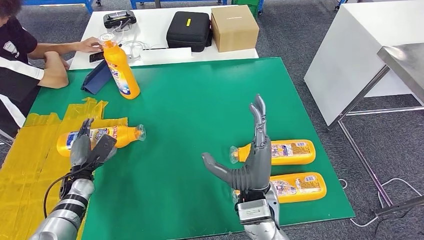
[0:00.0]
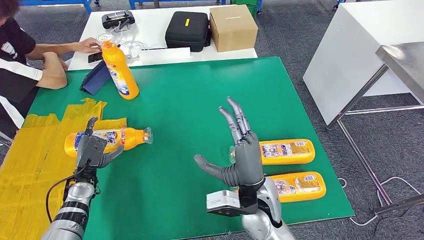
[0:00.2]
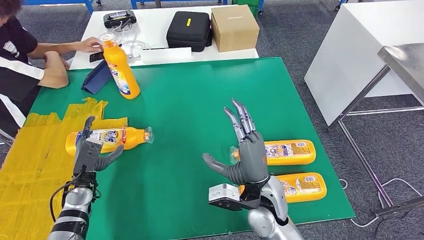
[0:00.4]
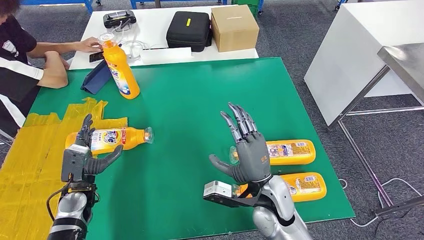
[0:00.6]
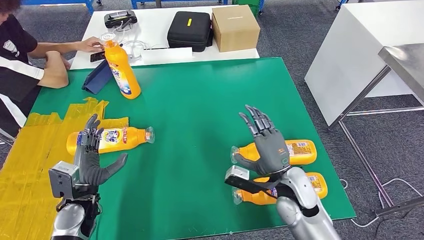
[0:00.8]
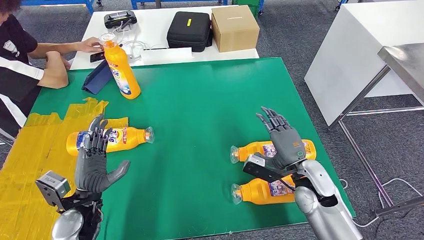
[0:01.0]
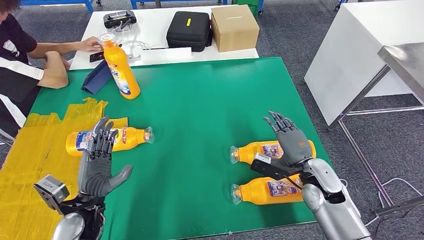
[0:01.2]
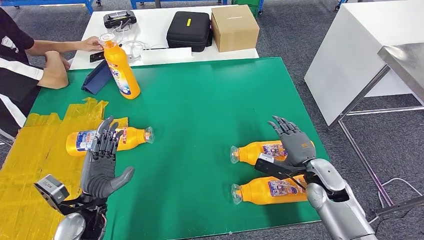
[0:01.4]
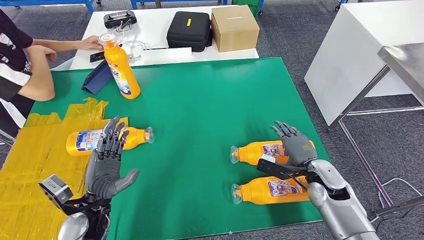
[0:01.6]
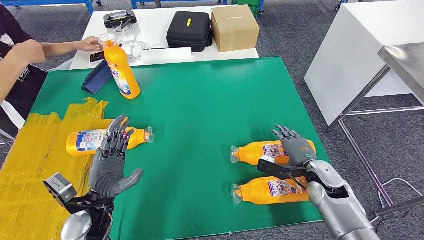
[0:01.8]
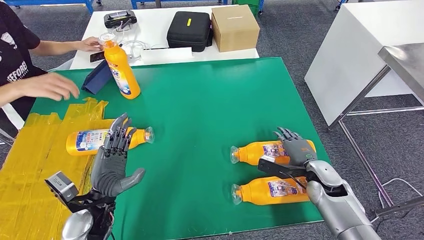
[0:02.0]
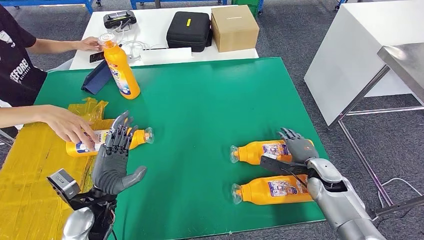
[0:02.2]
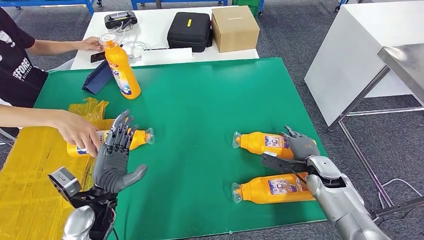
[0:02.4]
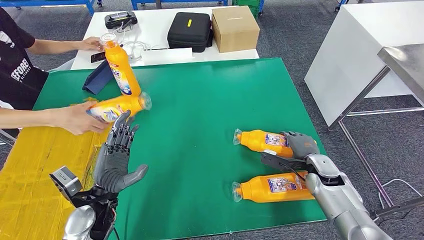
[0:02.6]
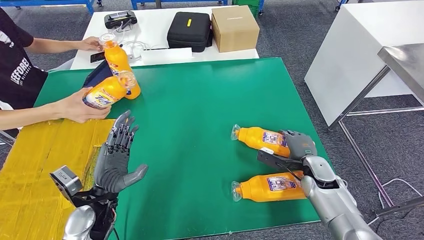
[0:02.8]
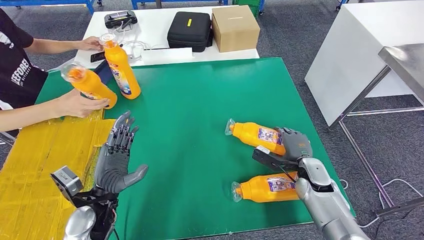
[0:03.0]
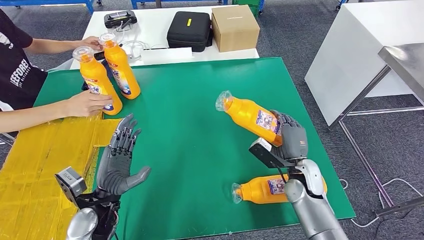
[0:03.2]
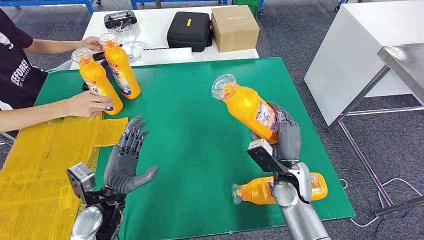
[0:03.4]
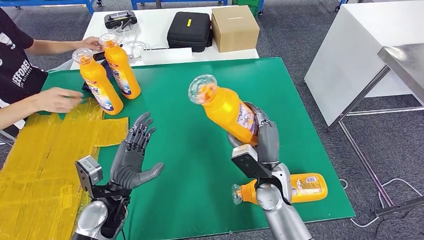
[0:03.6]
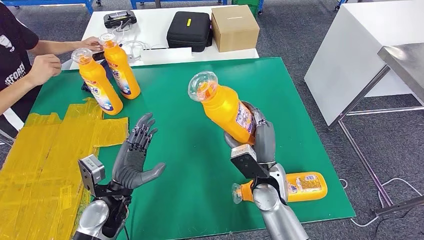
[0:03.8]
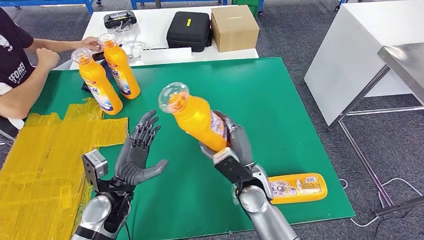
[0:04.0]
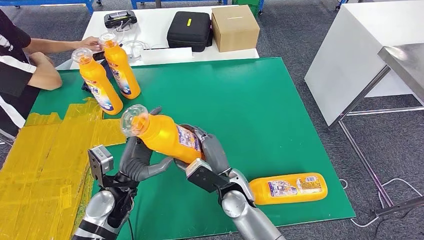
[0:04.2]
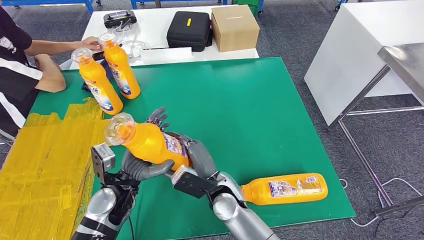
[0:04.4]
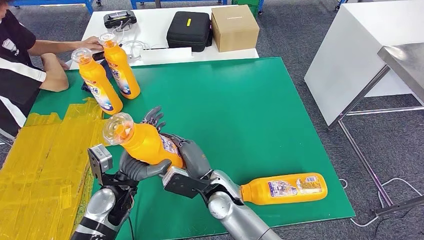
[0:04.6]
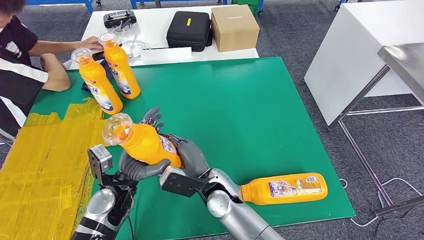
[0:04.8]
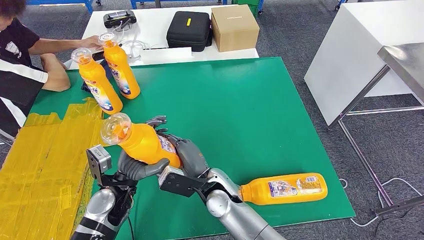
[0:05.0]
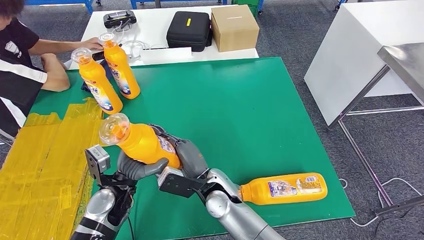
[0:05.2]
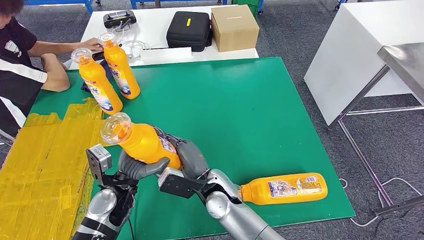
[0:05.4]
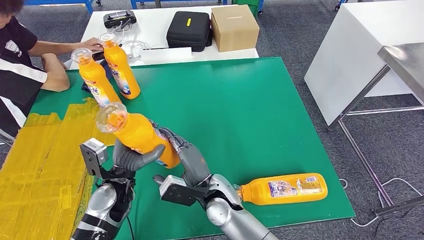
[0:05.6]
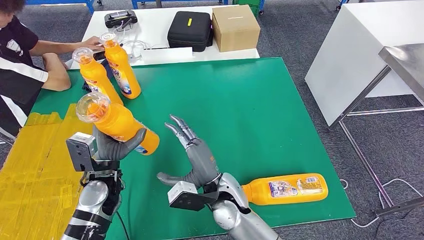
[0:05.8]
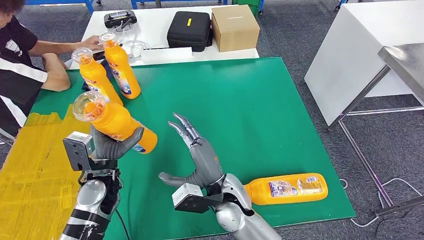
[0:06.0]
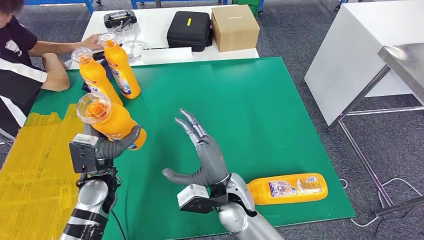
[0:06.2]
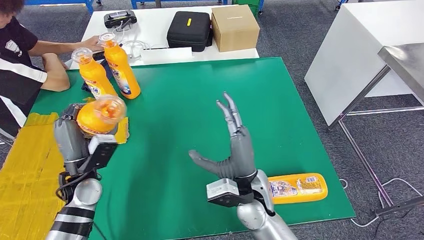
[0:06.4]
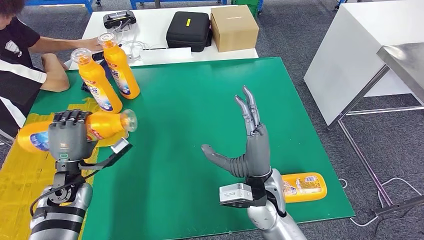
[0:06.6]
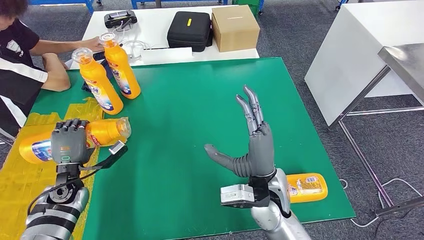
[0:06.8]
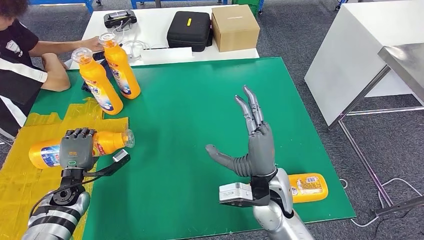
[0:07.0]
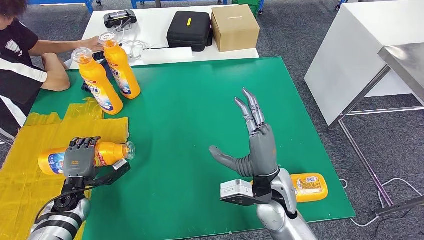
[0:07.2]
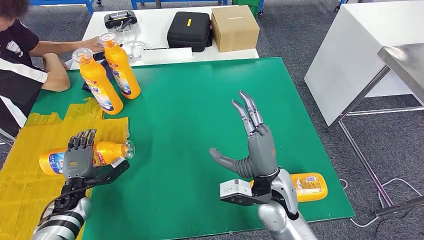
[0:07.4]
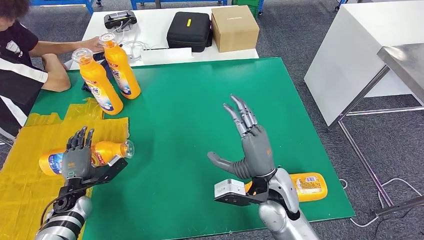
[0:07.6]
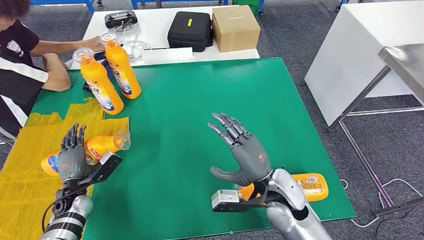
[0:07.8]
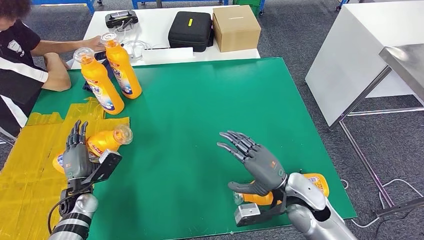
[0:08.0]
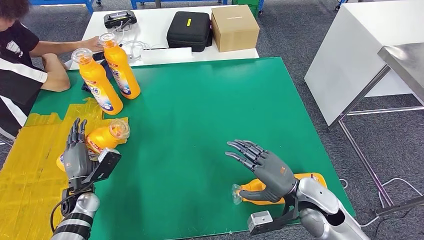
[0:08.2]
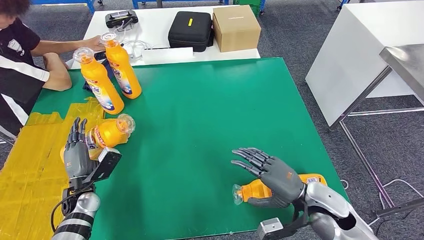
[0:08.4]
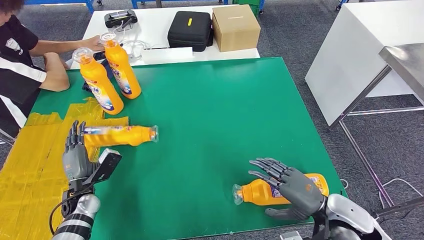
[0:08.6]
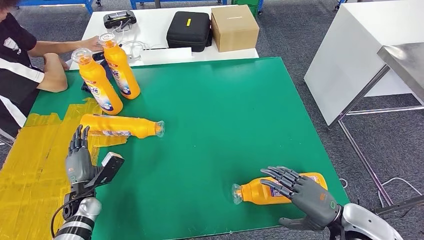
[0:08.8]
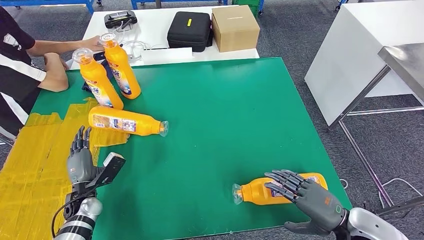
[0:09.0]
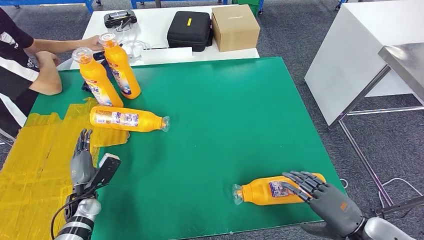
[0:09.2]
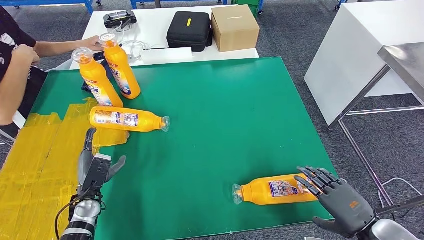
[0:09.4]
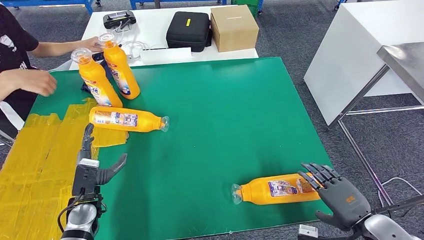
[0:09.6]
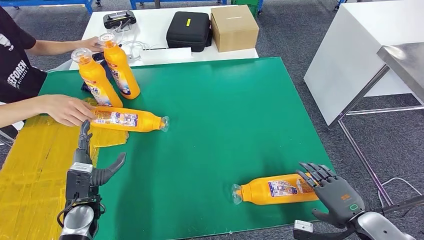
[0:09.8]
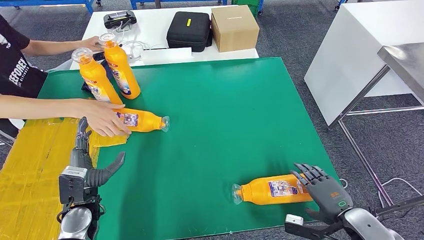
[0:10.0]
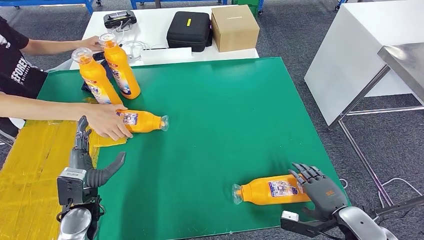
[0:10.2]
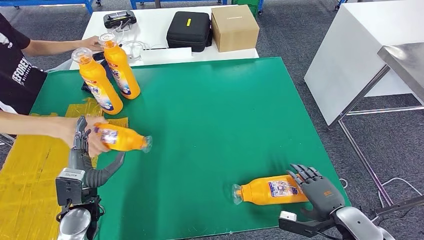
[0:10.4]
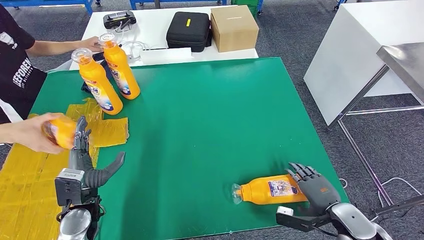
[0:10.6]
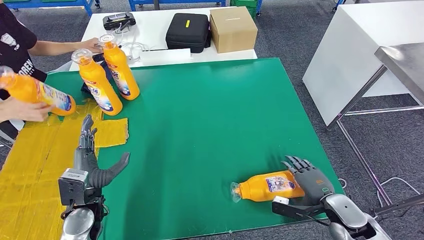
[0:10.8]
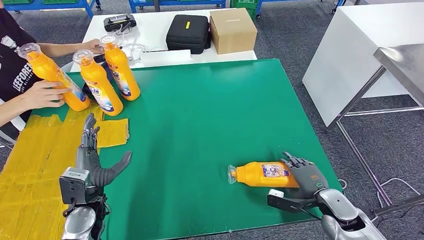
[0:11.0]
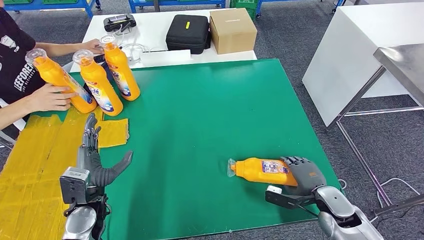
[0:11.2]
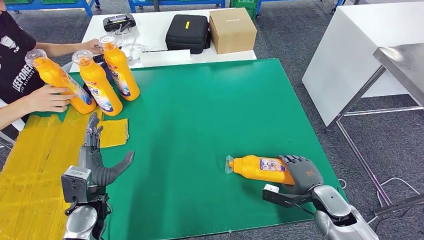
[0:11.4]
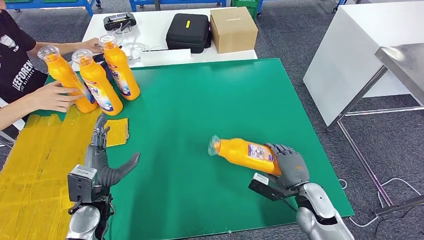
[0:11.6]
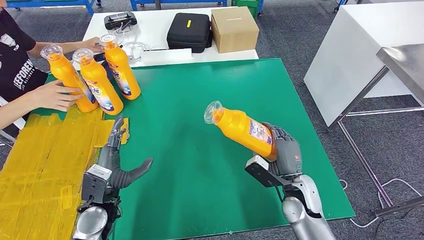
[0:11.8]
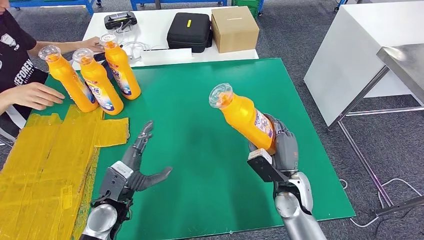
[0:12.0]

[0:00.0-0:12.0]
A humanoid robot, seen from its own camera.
Step, 0:01.2 to 0:04.6: Pick up the fast-moving consumer goods bottle from the table.
Step, 0:04.8 to 0:09.6: Flip the fast-moving consumer goods bottle to the front side.
0:06.0 to 0:07.6: The left hand goes some 20 cm to the left and downward. Meanwhile the right hand moves to the right, some 10 cm.
0:07.6 to 0:09.0: The right hand shifts roughly 20 cm to the right and backward.
0:09.0 to 0:10.4: The left hand goes about 10 cm upward and to the right, while the right hand goes some 5 cm downward.

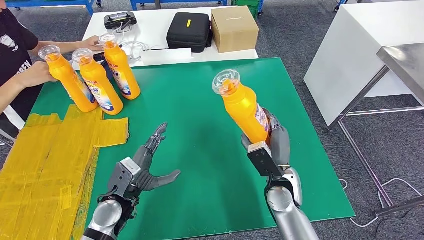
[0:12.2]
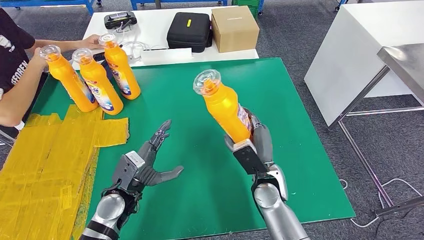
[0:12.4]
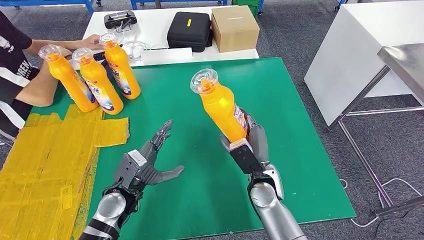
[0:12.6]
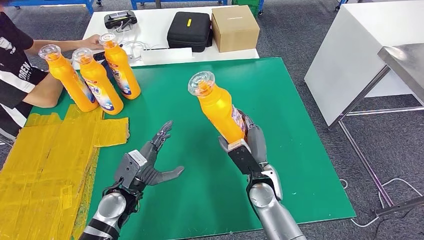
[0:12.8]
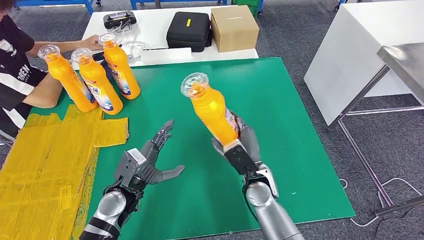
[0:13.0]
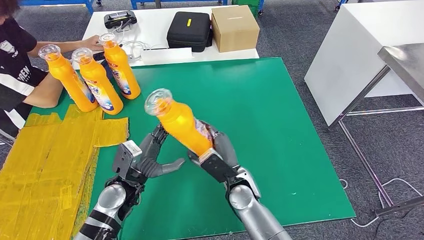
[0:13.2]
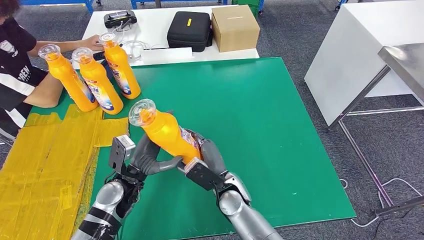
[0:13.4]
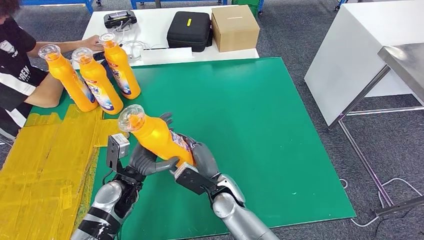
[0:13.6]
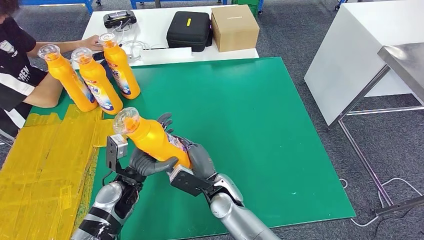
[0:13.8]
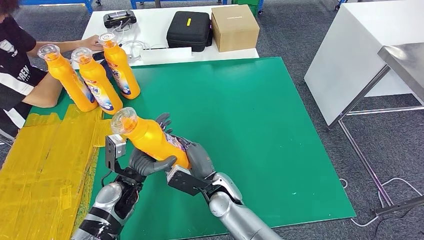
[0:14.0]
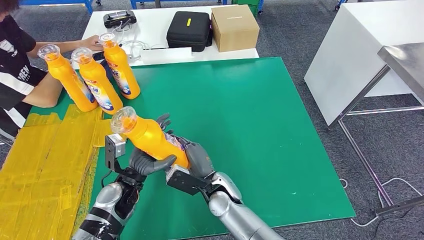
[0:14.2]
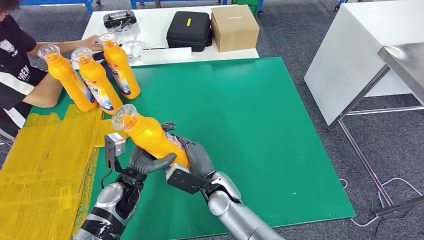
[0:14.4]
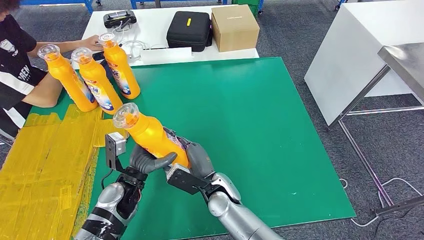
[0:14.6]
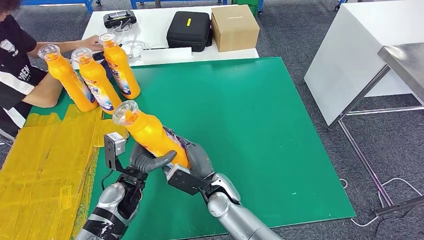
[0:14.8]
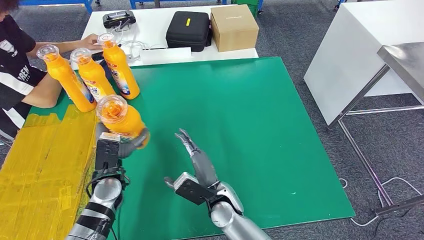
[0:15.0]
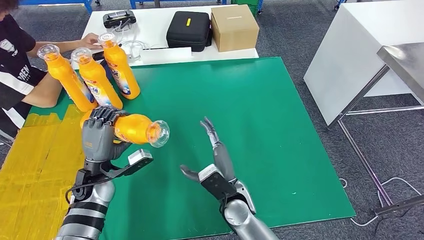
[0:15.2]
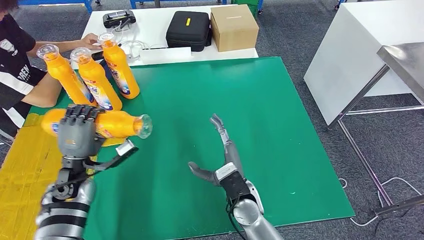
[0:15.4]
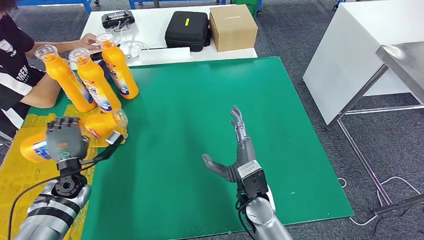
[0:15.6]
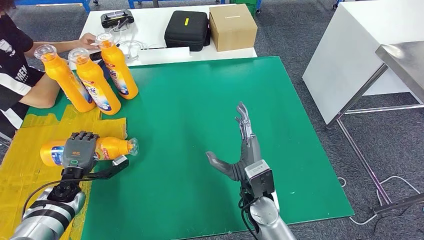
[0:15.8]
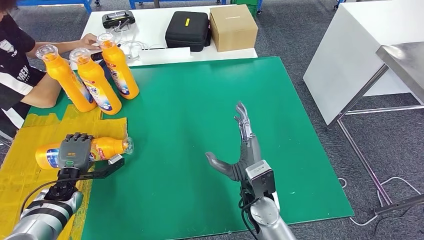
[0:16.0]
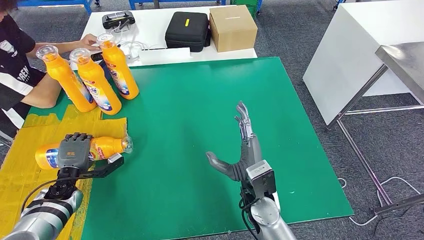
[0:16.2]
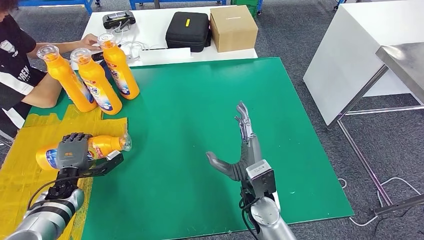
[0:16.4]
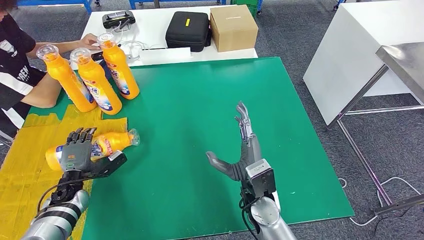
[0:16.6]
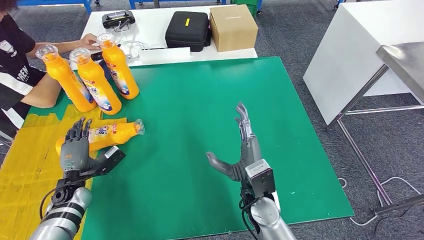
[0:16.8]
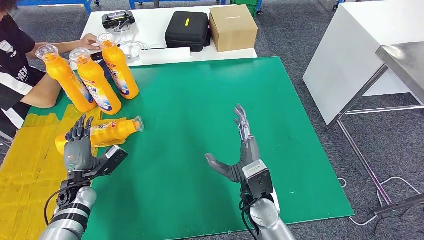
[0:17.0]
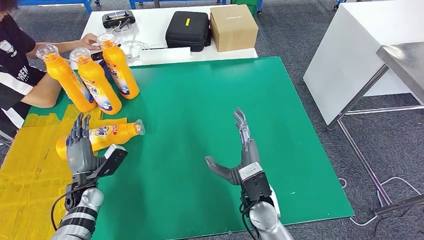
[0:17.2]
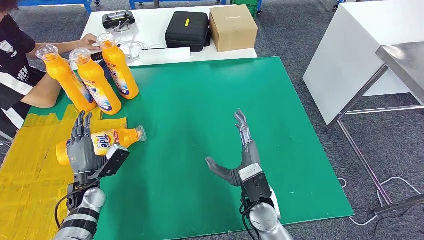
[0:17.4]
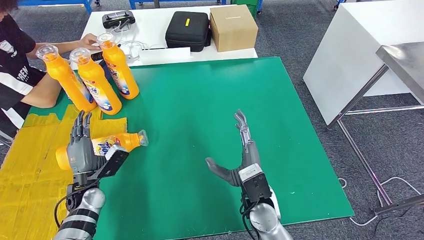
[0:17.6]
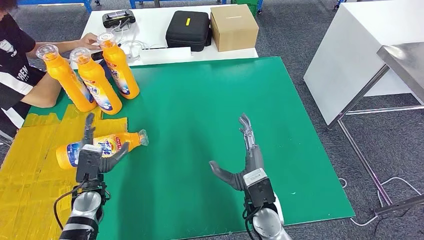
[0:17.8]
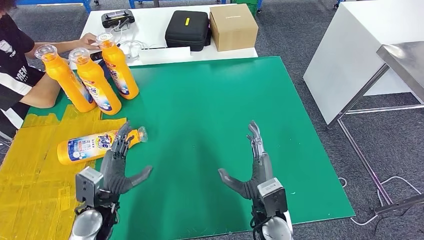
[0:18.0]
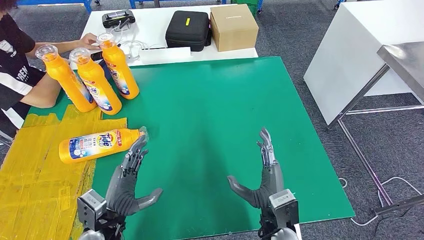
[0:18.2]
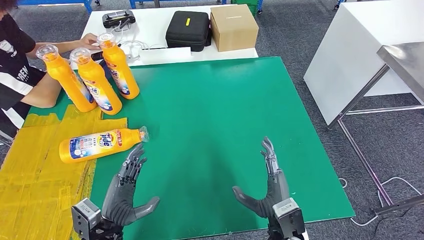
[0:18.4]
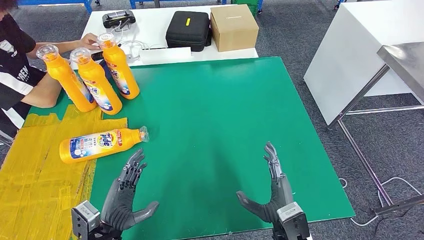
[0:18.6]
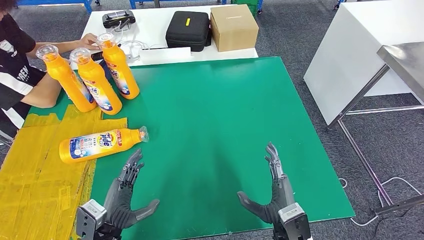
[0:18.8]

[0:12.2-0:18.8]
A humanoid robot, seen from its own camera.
Step, 0:12.2 to 0:14.6: Pick up the fast-moving consumer goods bottle from the table.
Step, 0:14.8 to 0:18.8: Flip the fast-moving consumer goods bottle to the front side.
0:13.8 to 0:15.4: The right hand changes place by approximately 5 cm, while the left hand shifts some 10 cm to the left.
0:15.4 to 0:17.2: The left hand goes about 10 cm downward.
0:17.2 to 0:18.8: The left hand is displaced backward and to the right by approximately 15 cm, while the right hand travels backward and to the right by approximately 10 cm.
